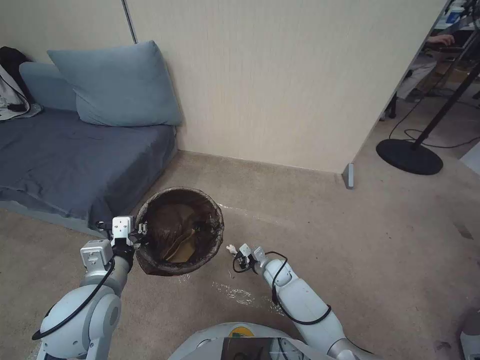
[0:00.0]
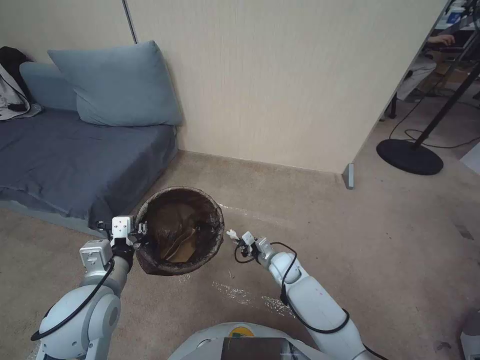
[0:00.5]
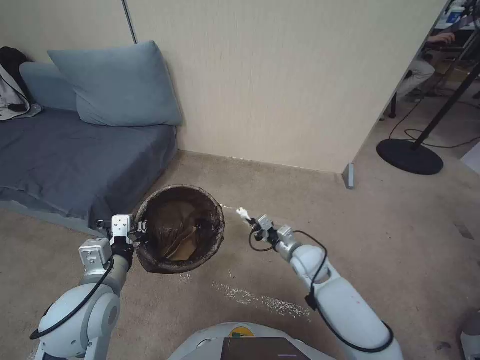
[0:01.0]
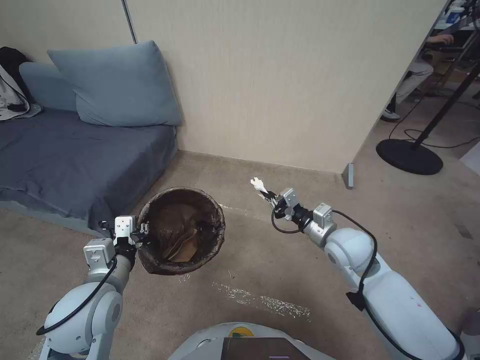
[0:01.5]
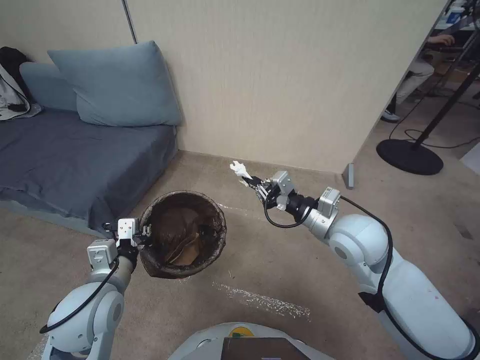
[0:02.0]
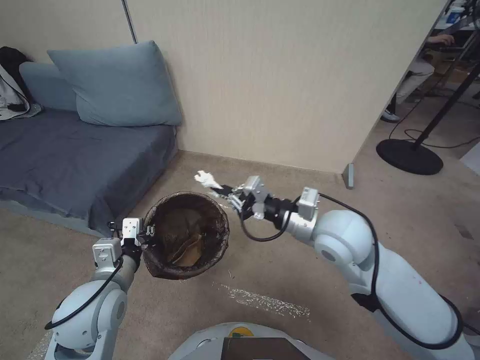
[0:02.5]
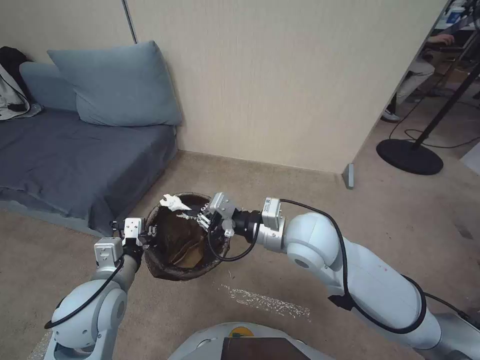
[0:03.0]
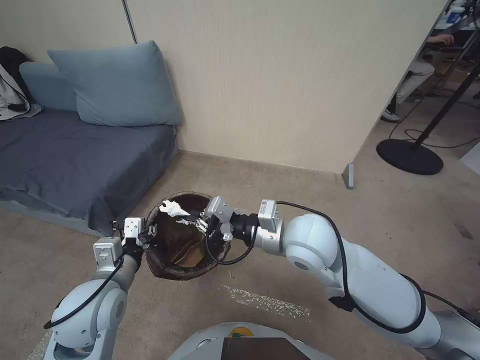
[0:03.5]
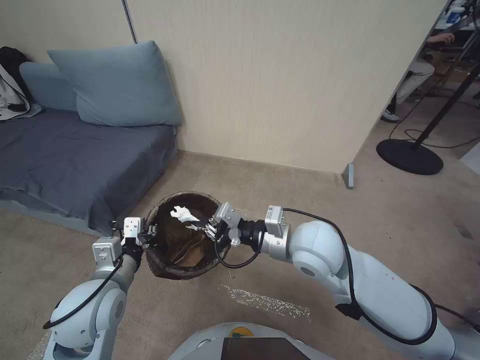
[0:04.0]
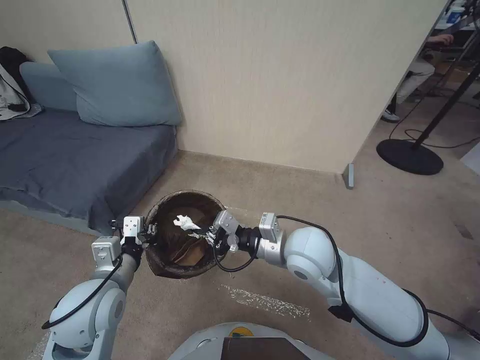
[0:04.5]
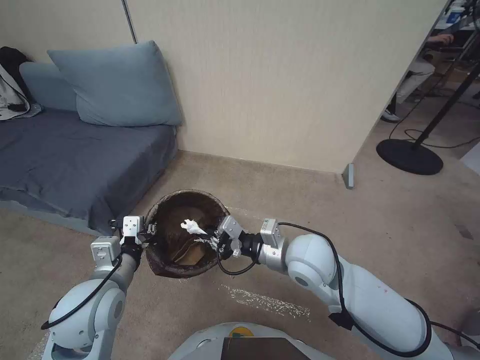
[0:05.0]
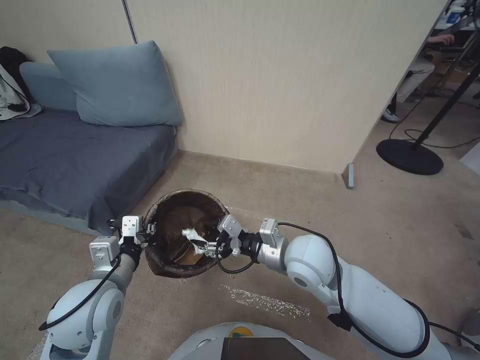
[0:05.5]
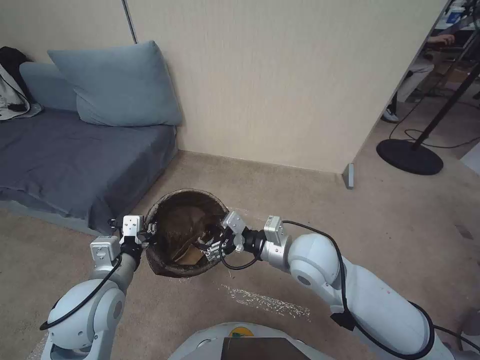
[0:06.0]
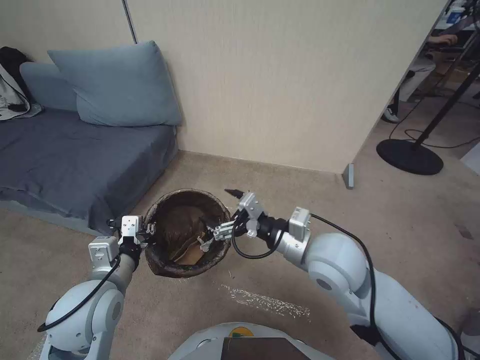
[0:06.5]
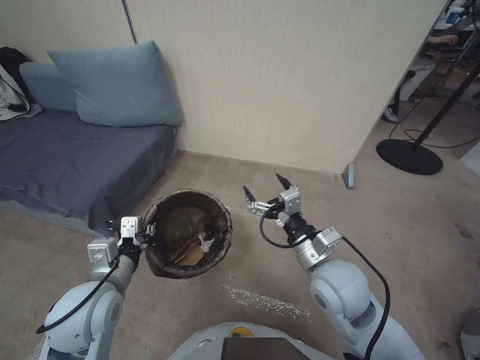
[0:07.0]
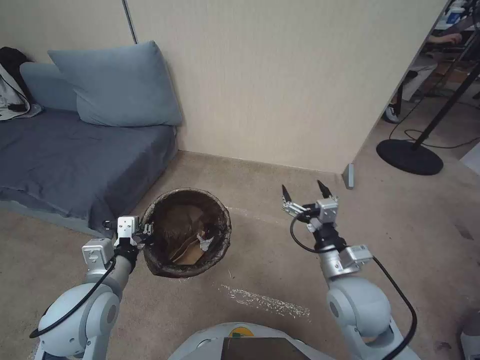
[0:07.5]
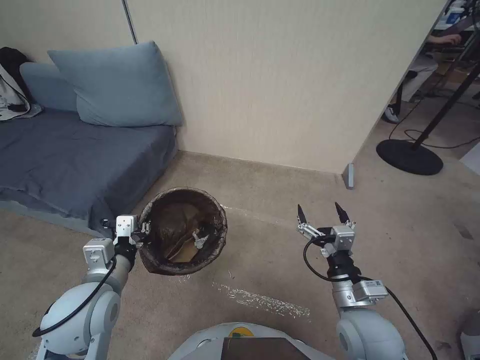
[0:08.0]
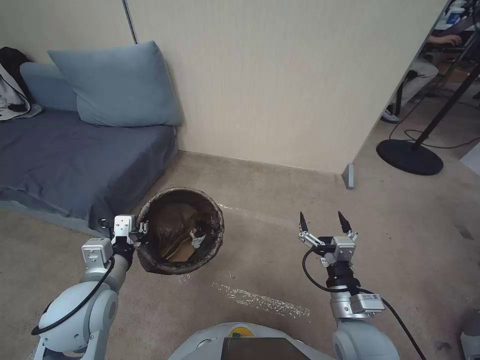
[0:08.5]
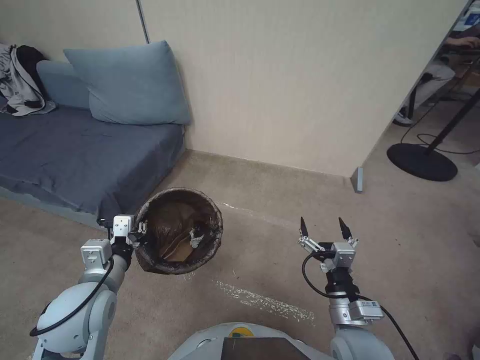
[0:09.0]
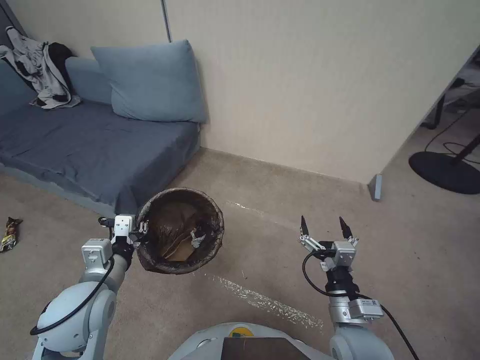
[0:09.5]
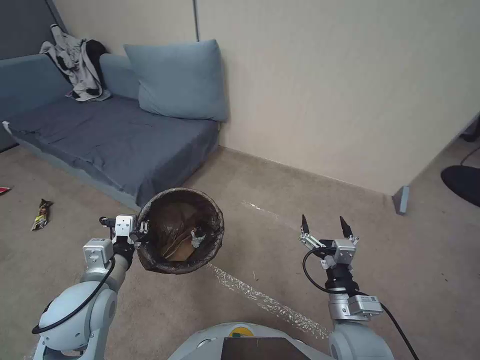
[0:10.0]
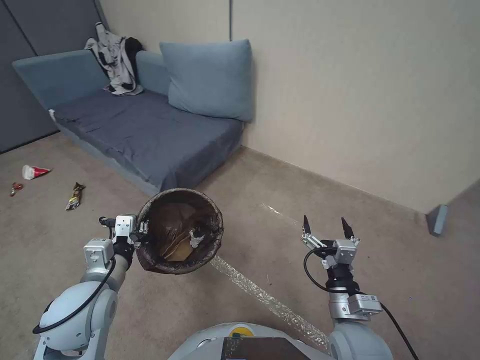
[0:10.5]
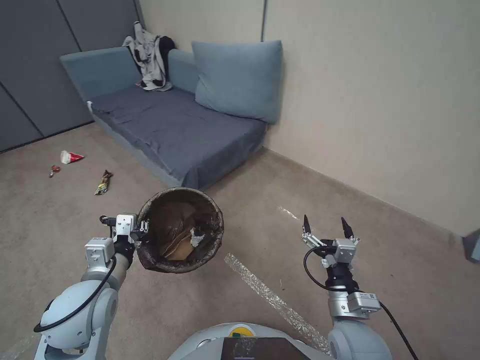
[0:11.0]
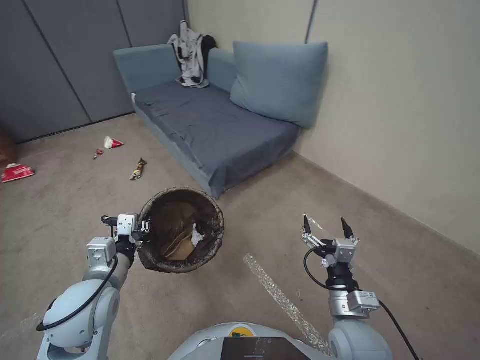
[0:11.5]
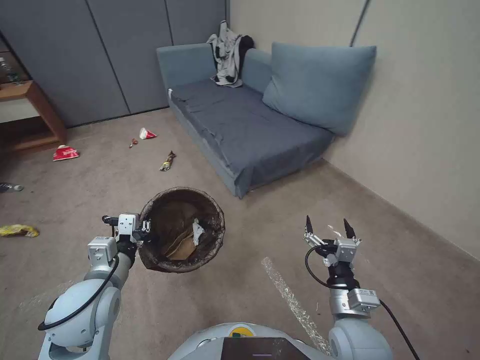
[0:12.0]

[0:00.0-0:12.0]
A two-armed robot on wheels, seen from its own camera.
Task of the whole recording: Pick up the trash bin, then pick up the garbage from the floor and place it into the trash bin.
0:00.0 to 0:02.0: The right gripper is displaced upward by roughly 35 cm.
0:02.0 to 0:04.0: The right gripper goes approximately 10 cm to the left.
0:04.0 to 0:06.0: The right gripper opens.
0:06.0 to 0:08.0: The right gripper travels backward, to the right and downward by about 15 cm.

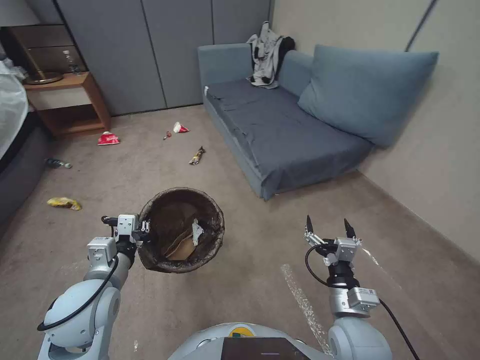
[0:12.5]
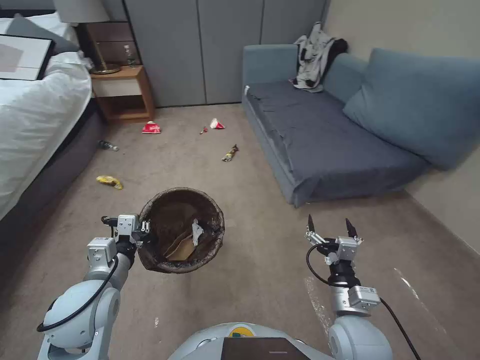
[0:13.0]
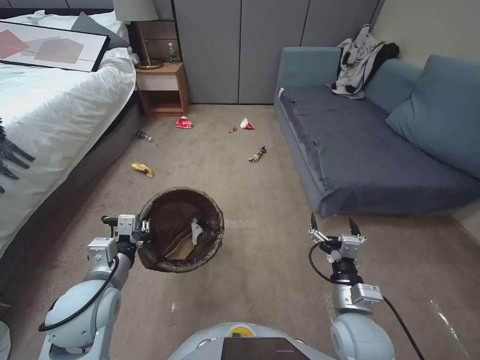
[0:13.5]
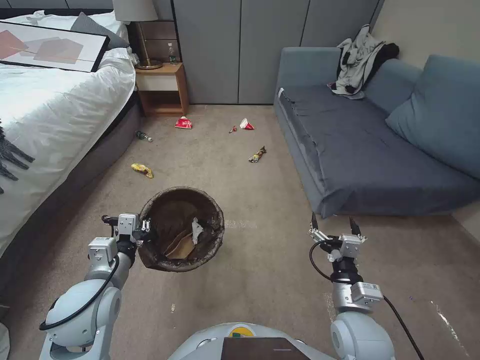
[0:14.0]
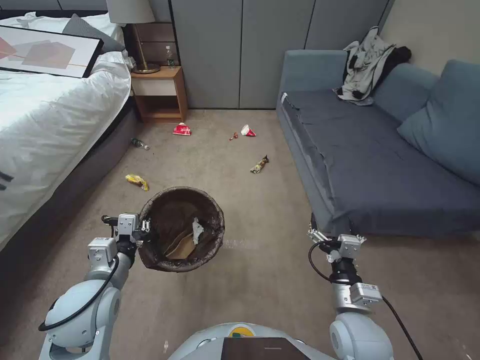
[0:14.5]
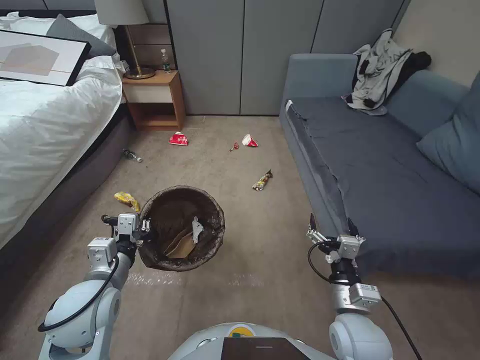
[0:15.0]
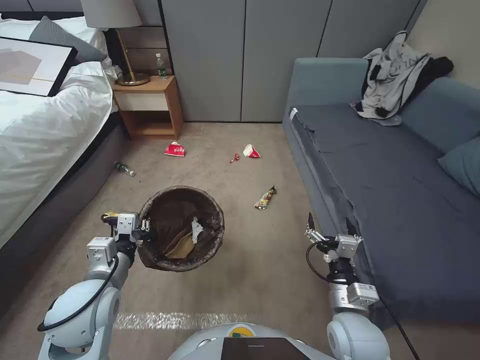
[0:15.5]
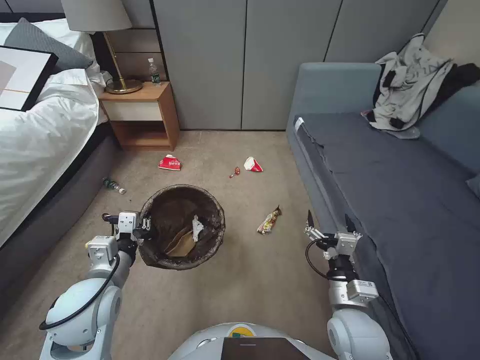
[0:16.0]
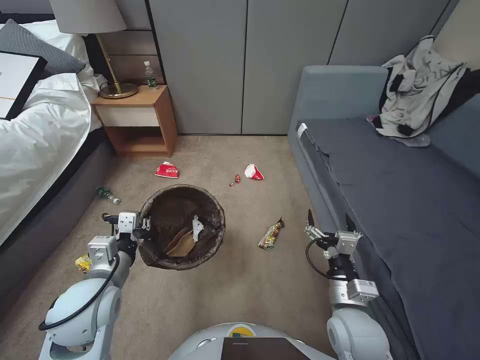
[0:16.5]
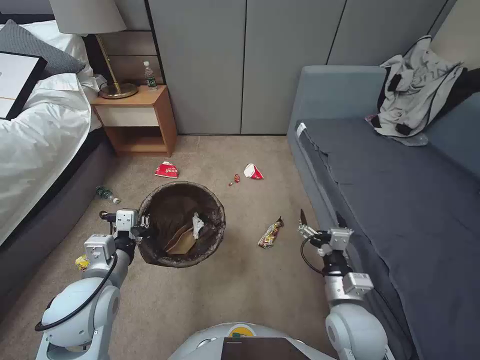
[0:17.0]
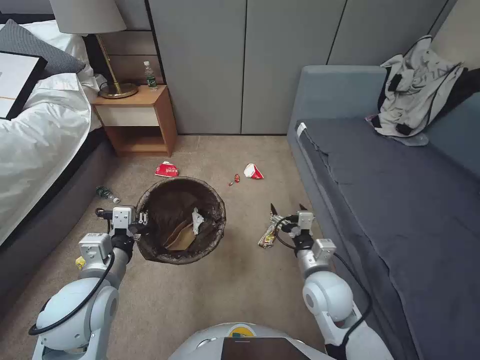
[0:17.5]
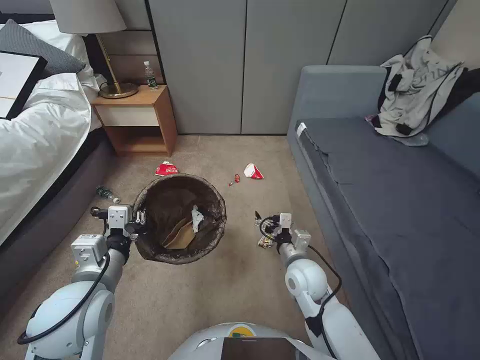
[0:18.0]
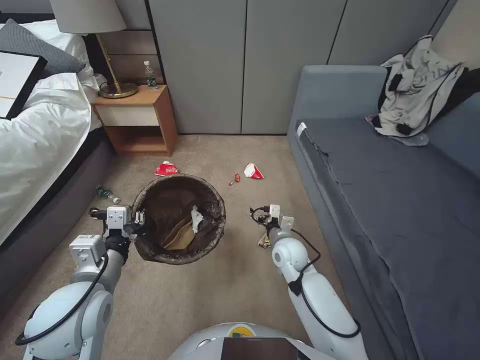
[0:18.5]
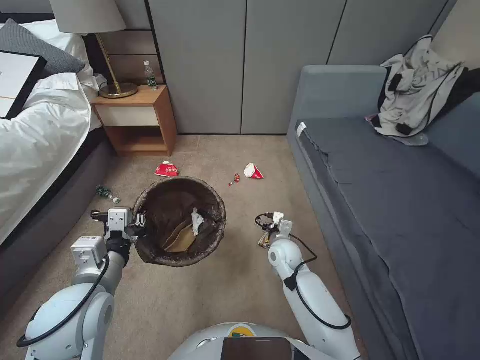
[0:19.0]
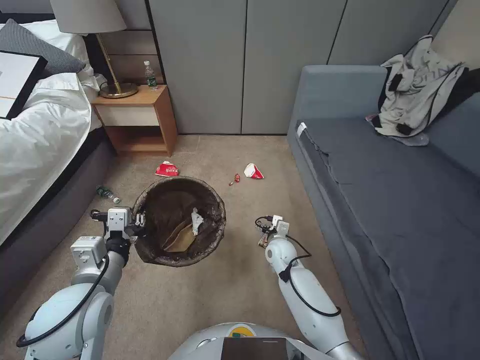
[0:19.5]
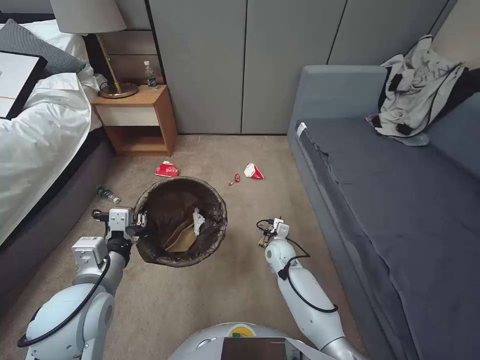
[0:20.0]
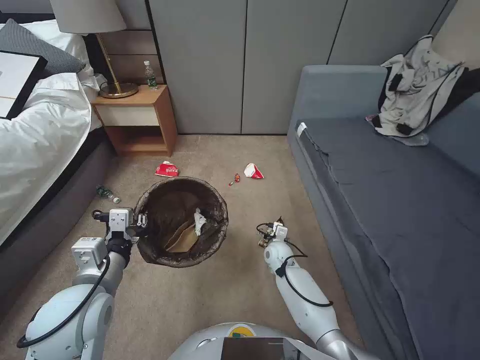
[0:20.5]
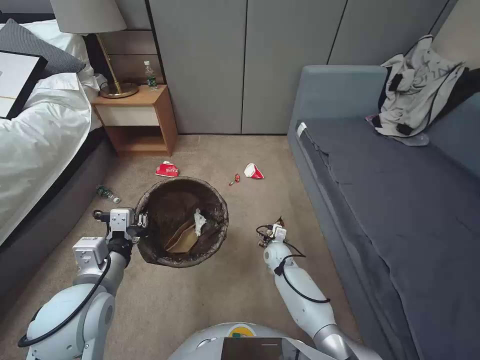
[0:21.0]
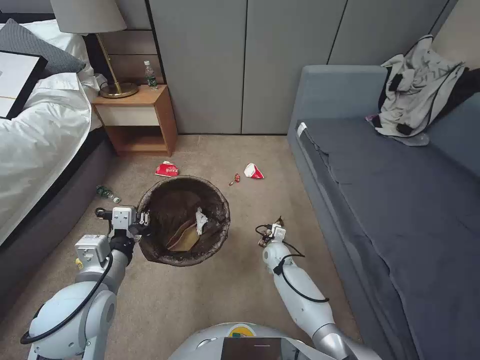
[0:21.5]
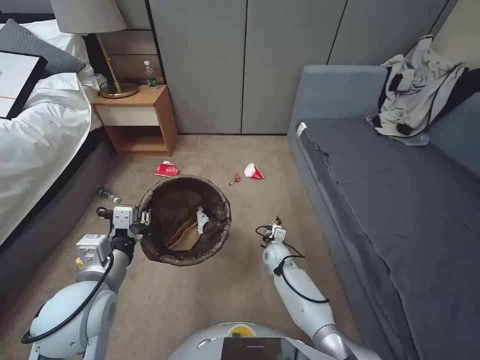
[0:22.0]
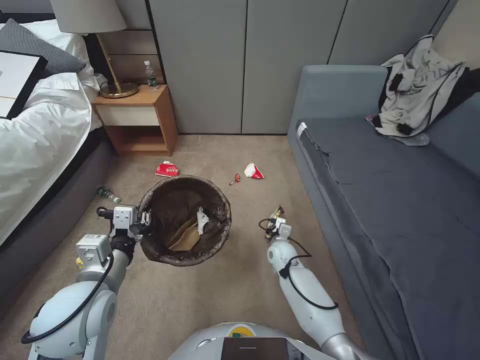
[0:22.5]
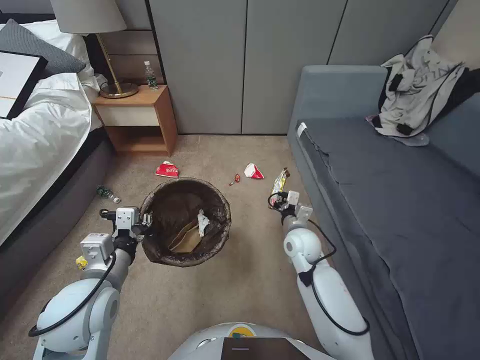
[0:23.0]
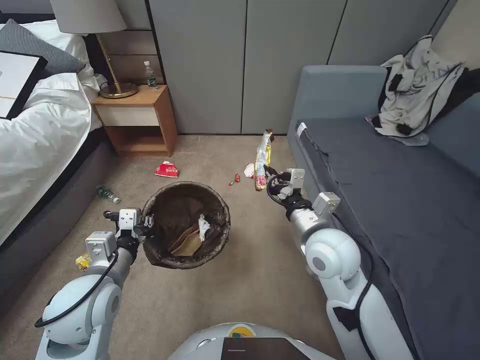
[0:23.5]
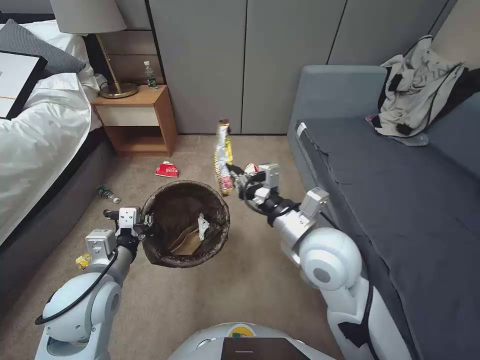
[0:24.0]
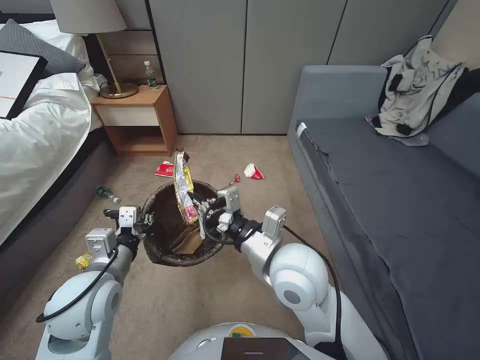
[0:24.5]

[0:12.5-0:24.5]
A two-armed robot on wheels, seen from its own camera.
Task of the whole recording: Pick up the trash bin, then pick up the garbage from the floor and place it into the trash bin.
0:16.5 to 0:18.5: The right gripper travels forward and to the left by approximately 20 cm.
0:18.5 to 0:20.5: The right gripper goes about 15 cm downward and forward.
0:20.5 to 0:22.5: The right gripper closes up.
0:22.5 to 0:24.5: The right gripper is displaced upward and backward by about 35 cm.

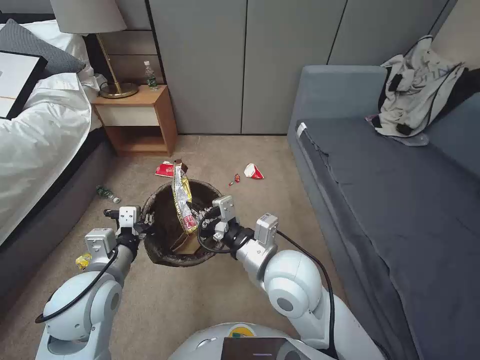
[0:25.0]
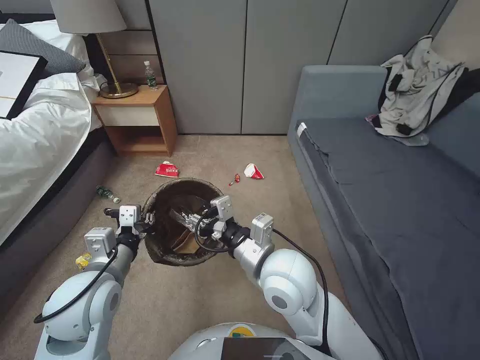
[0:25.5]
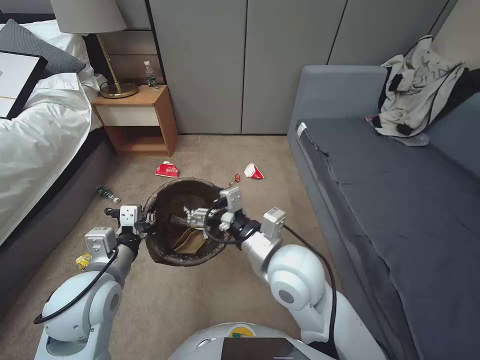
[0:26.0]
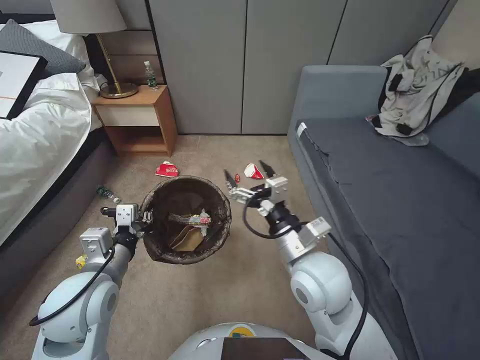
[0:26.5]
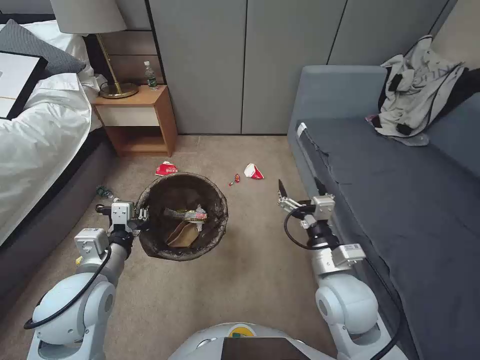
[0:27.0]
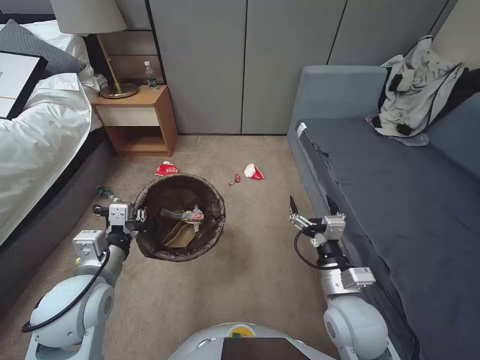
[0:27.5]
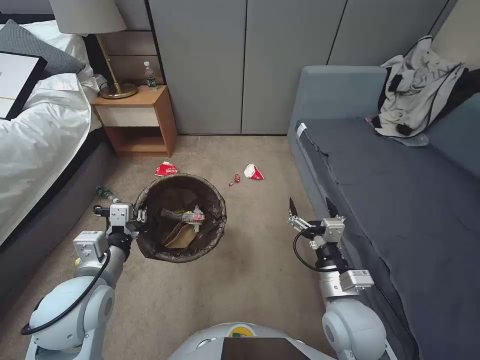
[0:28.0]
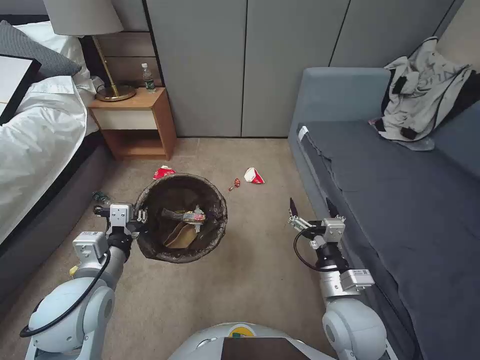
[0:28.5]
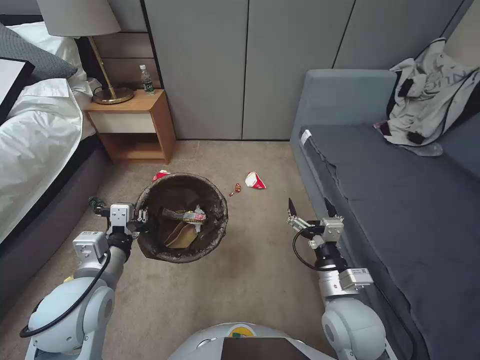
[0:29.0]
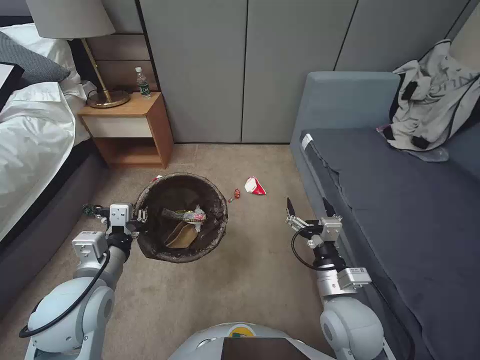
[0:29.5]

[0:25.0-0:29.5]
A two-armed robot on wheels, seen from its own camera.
Task of the whole recording: Pick up the trash bin, then pick up the garbage from the floor and place it into the trash bin.
0:25.0 to 0:27.0: The right gripper is displaced to the right and downward by roughly 10 cm, and opens.
0:27.0 to 0:29.5: The right gripper shifts by about 5 cm.
